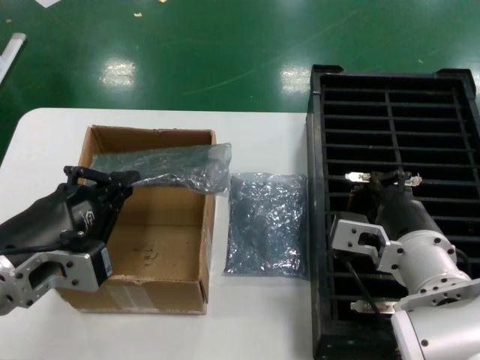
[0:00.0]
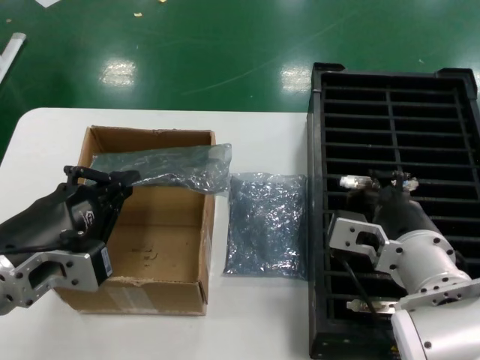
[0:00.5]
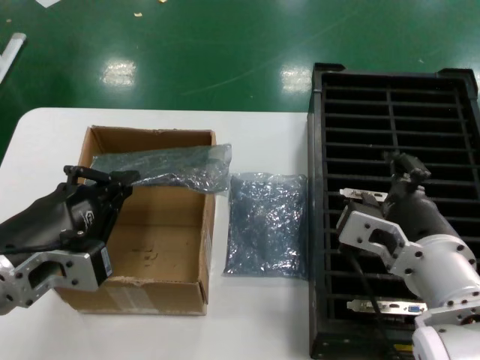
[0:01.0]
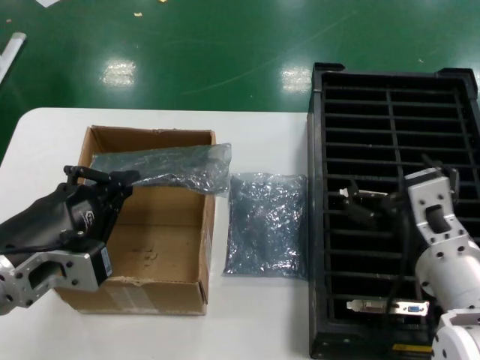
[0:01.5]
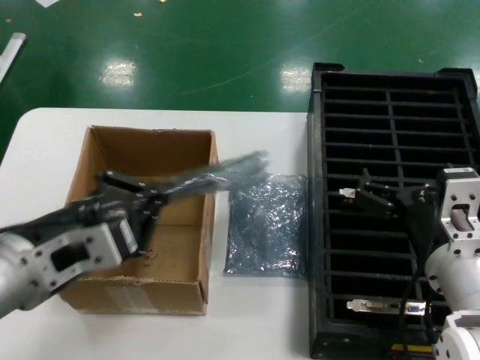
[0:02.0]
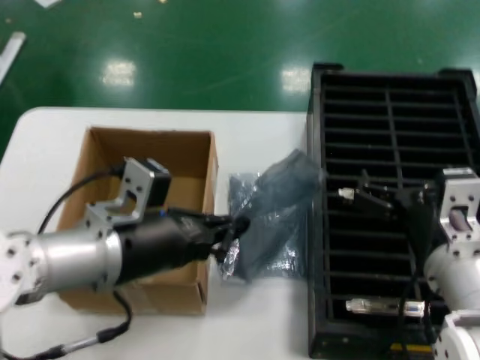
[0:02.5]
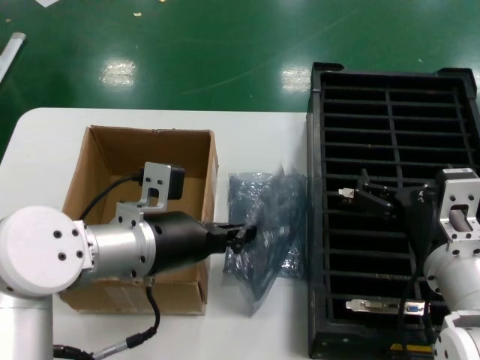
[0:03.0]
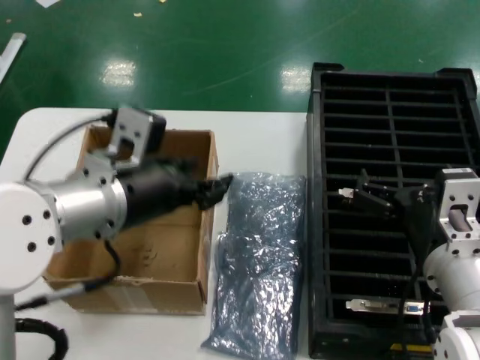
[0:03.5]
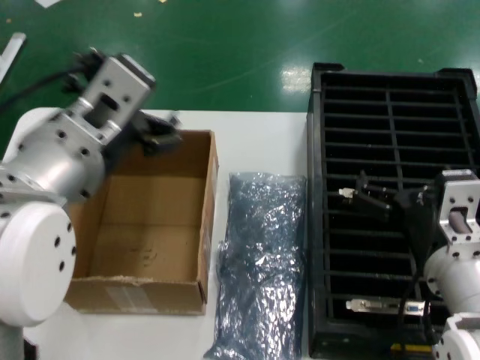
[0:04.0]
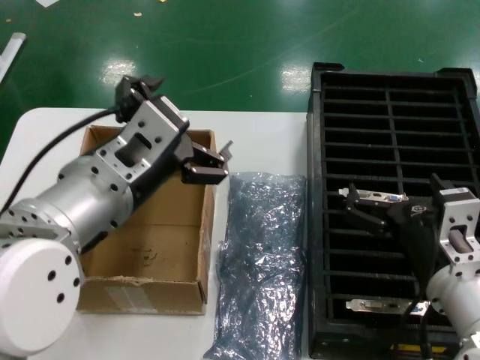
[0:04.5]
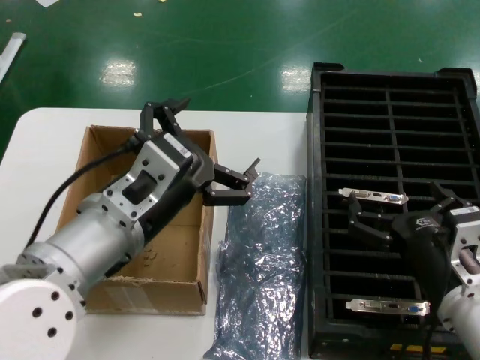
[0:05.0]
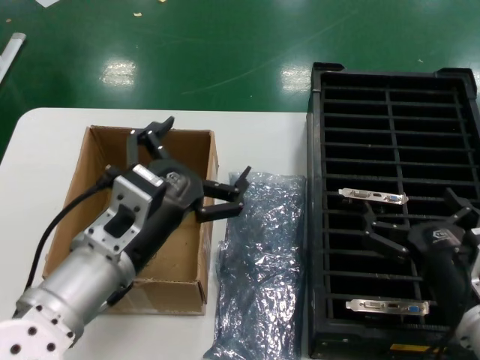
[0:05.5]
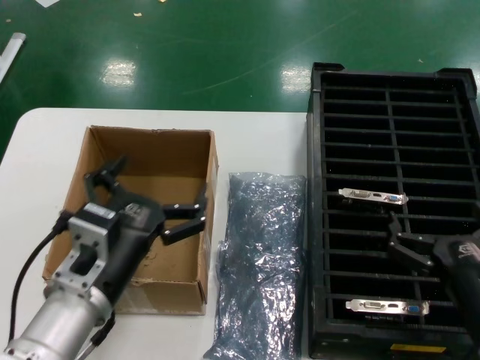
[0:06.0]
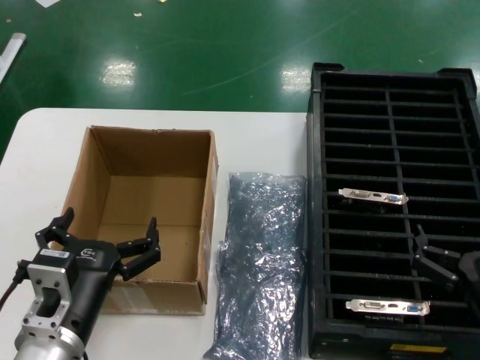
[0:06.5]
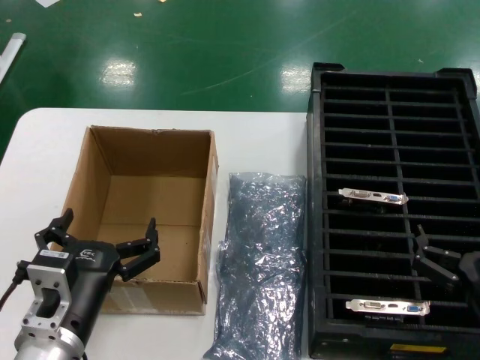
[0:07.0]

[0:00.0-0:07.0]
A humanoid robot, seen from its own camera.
Task of the whole recording: take out graphics card from box remove packaging put into black container.
Step, 0:02.0 to 0:05.5: Place the down the bag.
0:02.0 to 0:03.5: The left hand shifts about 10 cm forward and to the right.
0:03.5 to 0:05.0: The right hand shifts by roughly 5 cm. Meanwhile the left hand moves approximately 5 cm.
0:05.0 to 0:07.0: The left hand goes about 15 cm downward, while the right hand is displaced to the right by approximately 5 cm.
